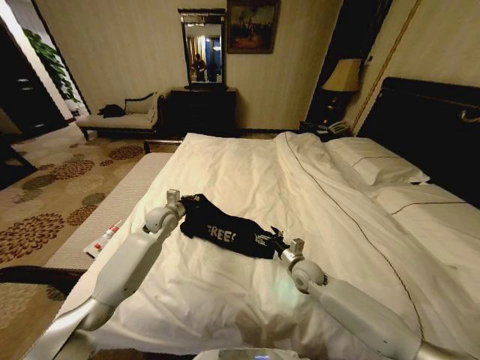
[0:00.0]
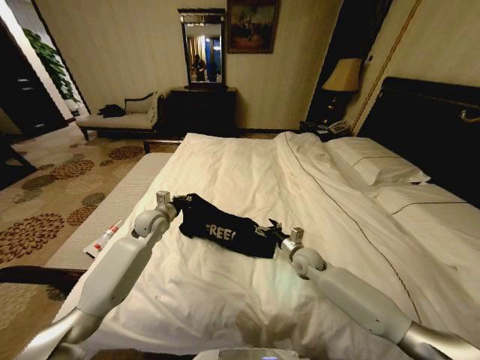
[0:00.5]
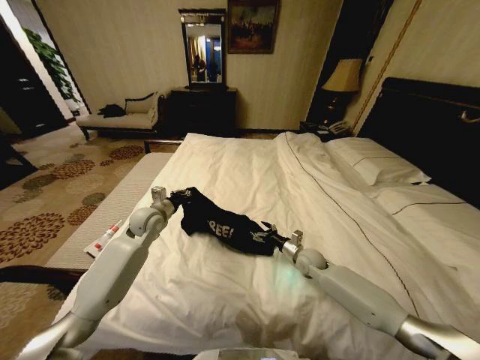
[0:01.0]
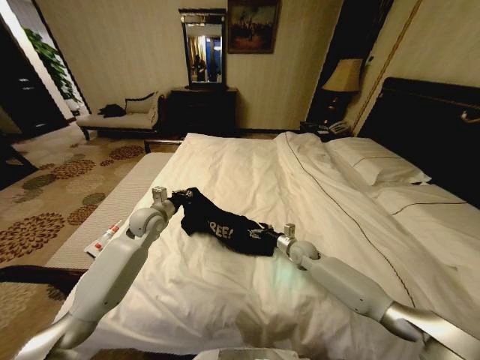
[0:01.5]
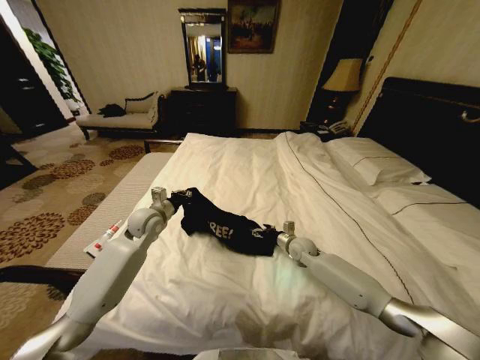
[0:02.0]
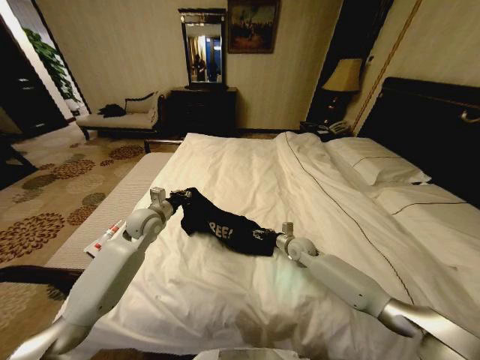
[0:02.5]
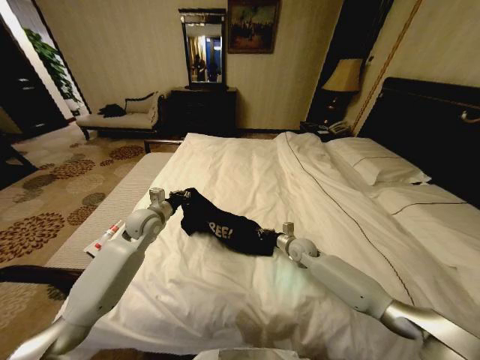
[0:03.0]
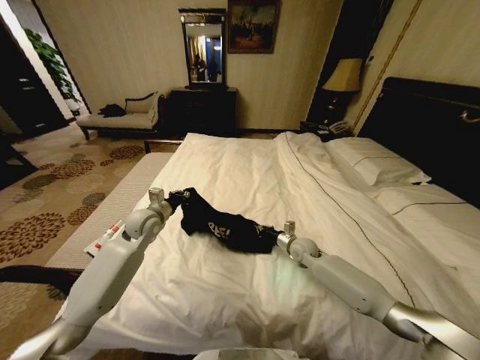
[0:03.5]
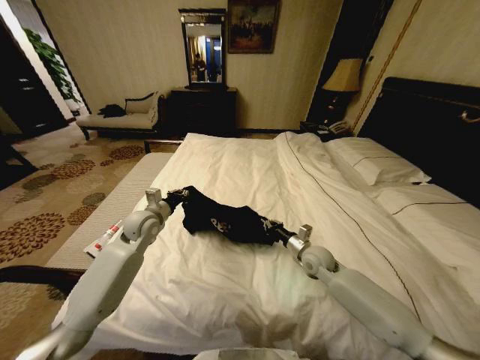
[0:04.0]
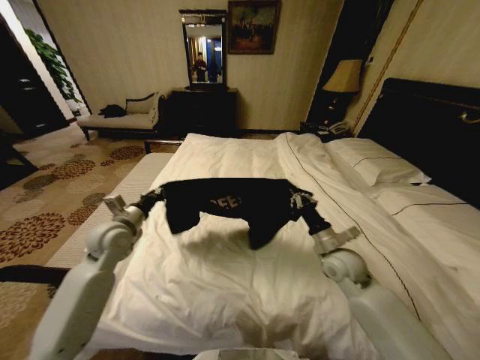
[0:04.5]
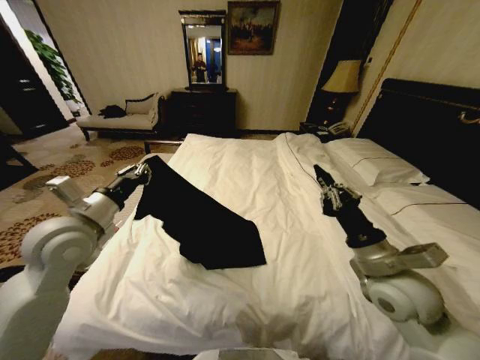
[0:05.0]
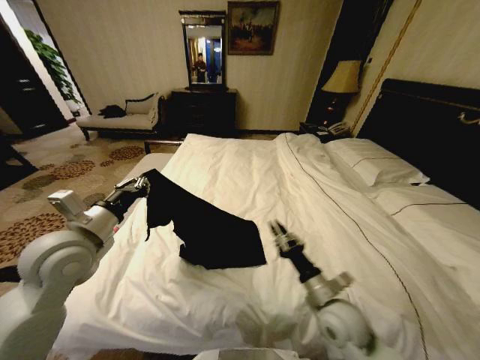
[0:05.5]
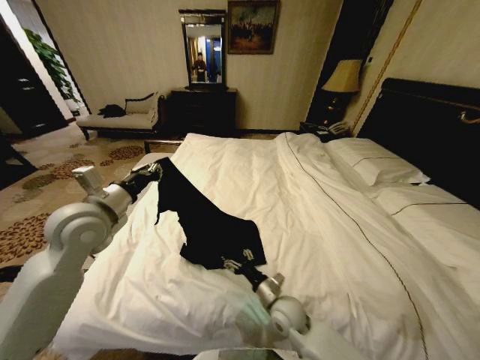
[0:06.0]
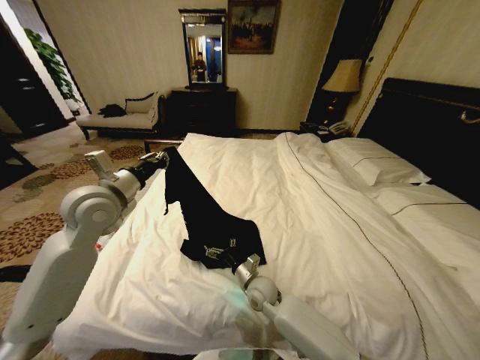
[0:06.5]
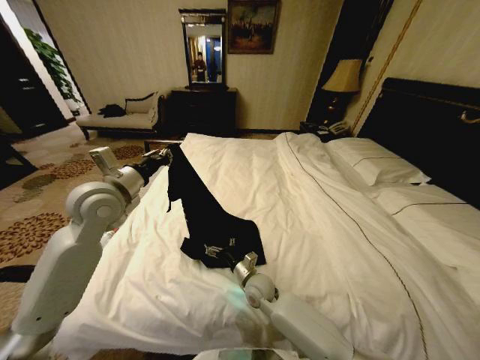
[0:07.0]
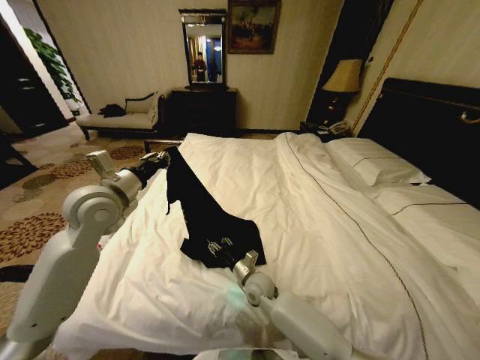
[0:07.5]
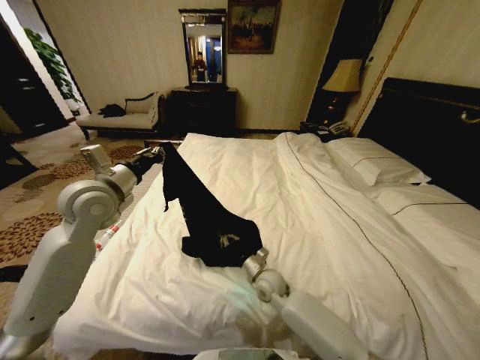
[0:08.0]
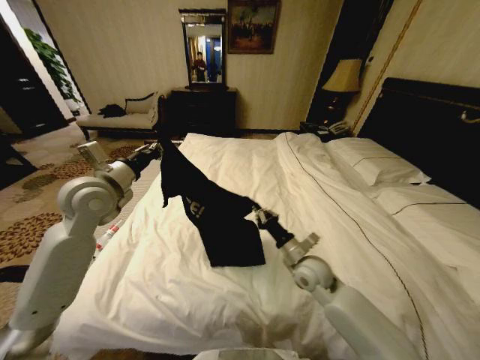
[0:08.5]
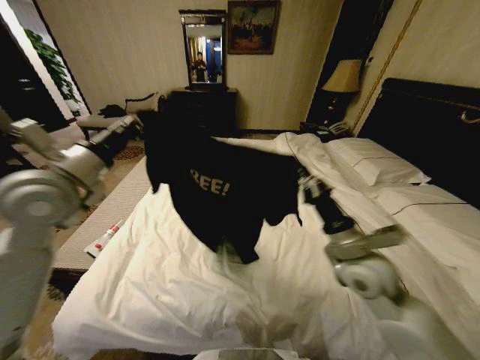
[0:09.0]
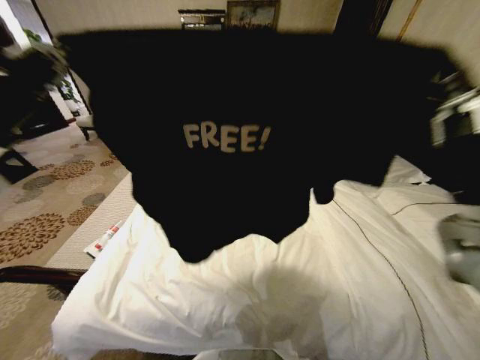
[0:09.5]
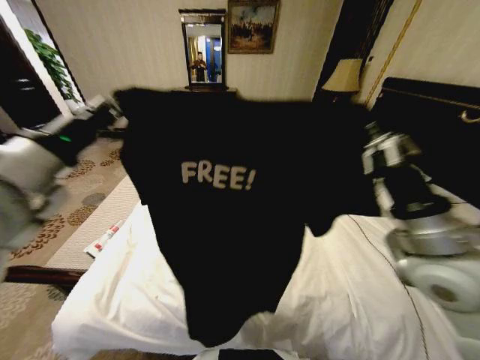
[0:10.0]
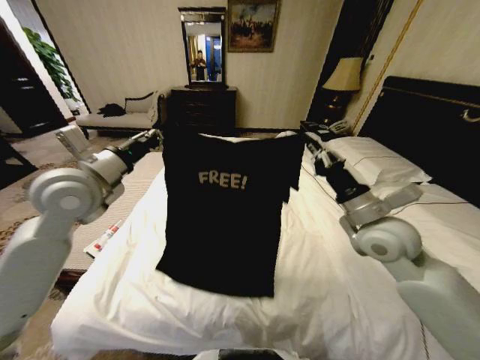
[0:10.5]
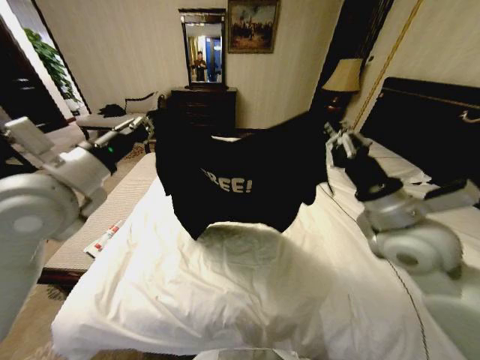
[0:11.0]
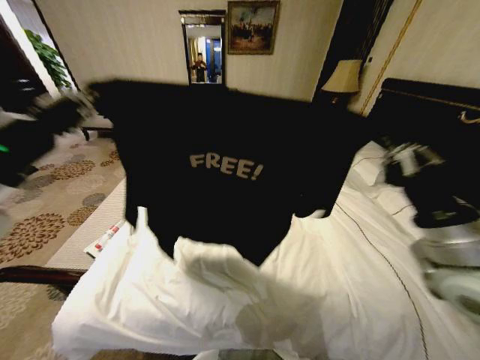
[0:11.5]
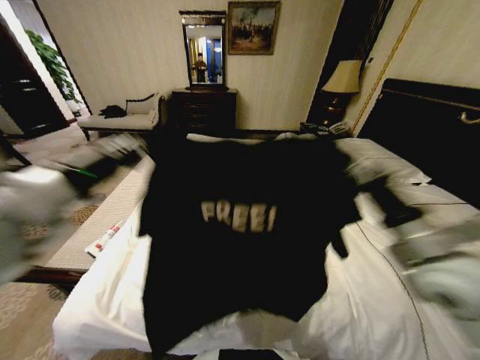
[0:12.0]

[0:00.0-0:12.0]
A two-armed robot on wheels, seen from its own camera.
Task of the whole recording: Fold the clothes on the bed.
0:00.0 to 0:02.0: The left gripper changes place by about 5 cm; the right gripper moves forward, about 10 cm.
0:02.0 to 0:04.0: The right gripper moves backward, some 5 cm, and closes.
0:04.0 to 0:06.0: The left gripper travels upward and backward by about 15 cm. Meanwhile the right gripper goes some 20 cm backward and to the left, moves about 15 cm upward and comes back, and opens.
0:06.0 to 0:08.0: The right gripper travels forward by about 10 cm, and closes. Meanwhile the left gripper moves roughly 5 cm.
0:08.0 to 0:10.0: The left gripper heads backward and upward, covering approximately 15 cm. Meanwhile the right gripper heads upward and to the right, covering approximately 35 cm.
0:10.0 to 0:12.0: The left gripper moves forward and backward over approximately 15 cm, changing direction 2 times. The right gripper moves approximately 10 cm forward and comes back.

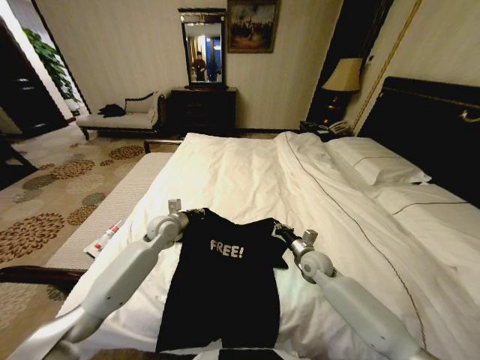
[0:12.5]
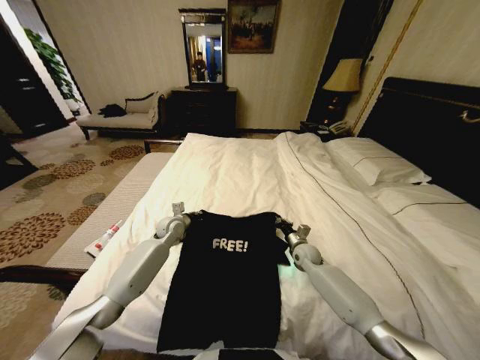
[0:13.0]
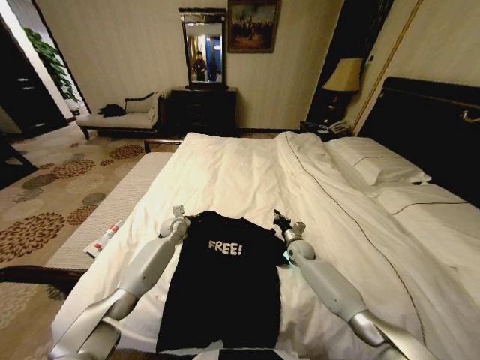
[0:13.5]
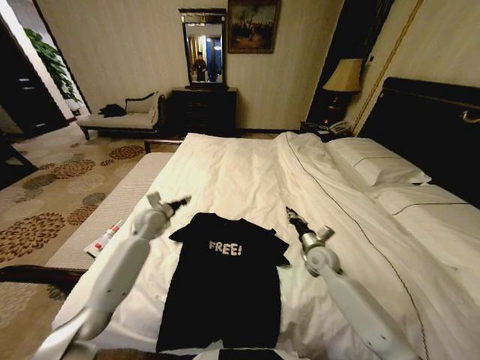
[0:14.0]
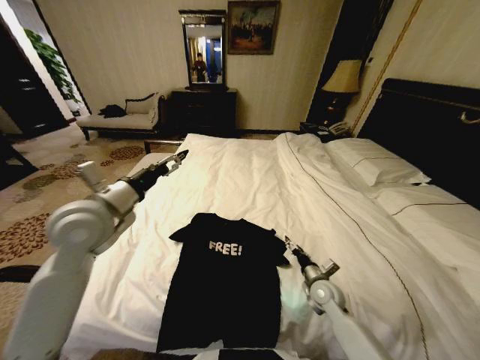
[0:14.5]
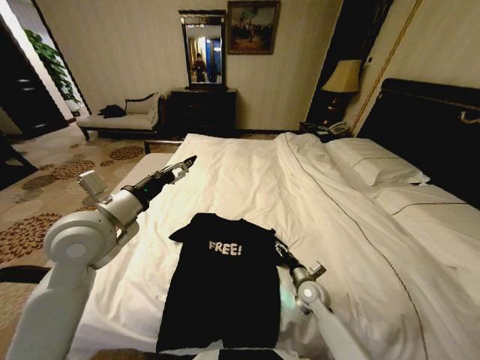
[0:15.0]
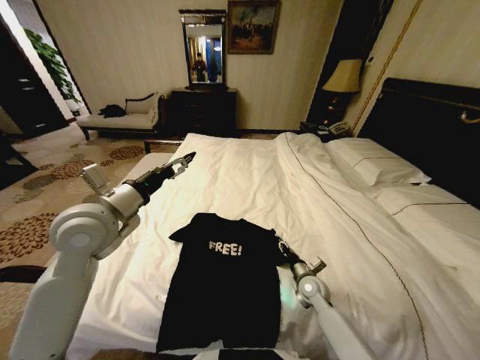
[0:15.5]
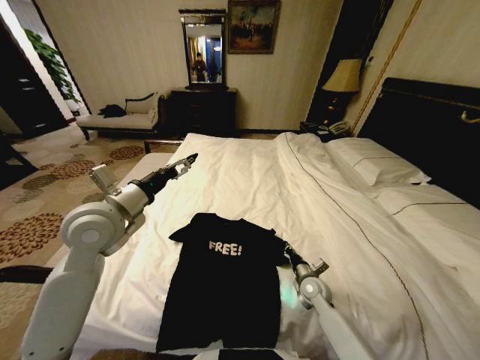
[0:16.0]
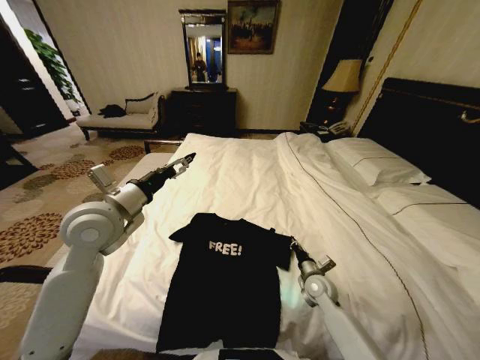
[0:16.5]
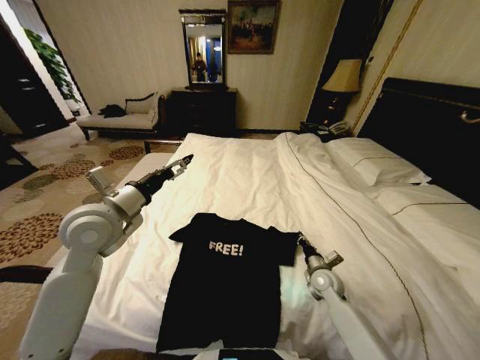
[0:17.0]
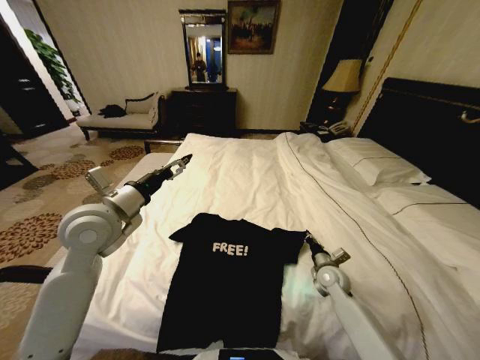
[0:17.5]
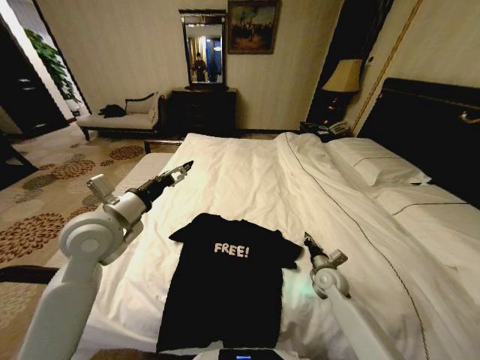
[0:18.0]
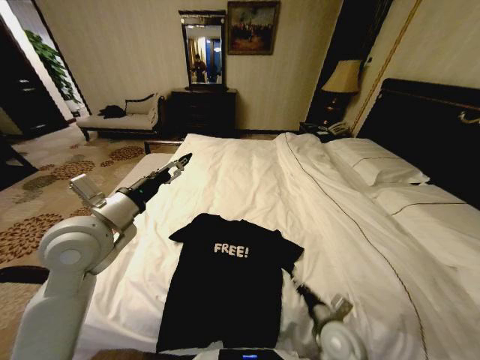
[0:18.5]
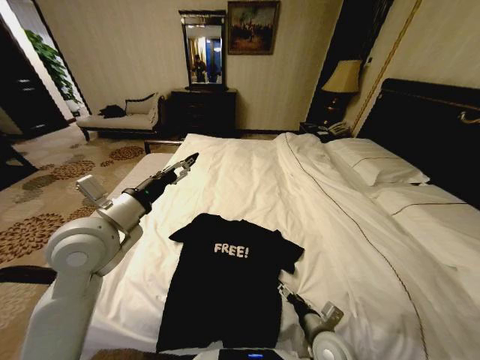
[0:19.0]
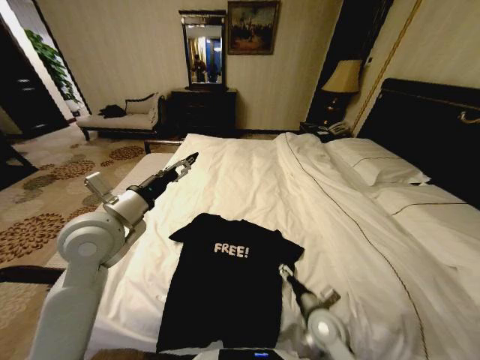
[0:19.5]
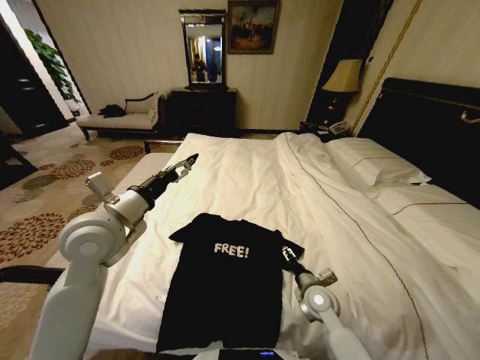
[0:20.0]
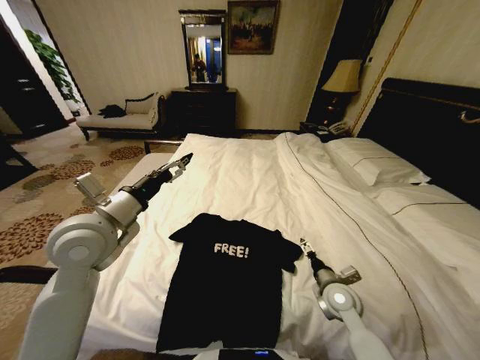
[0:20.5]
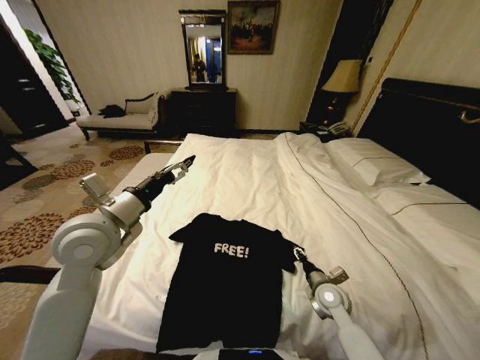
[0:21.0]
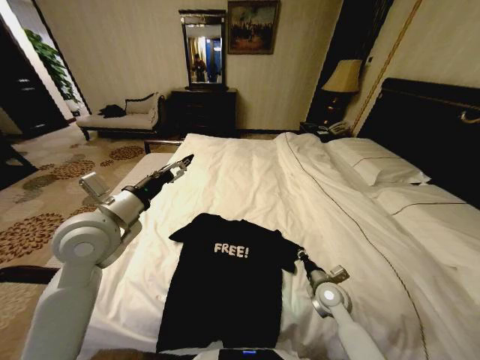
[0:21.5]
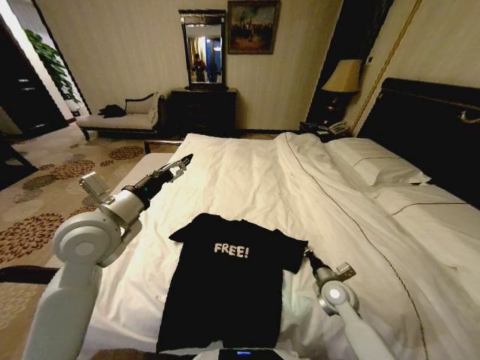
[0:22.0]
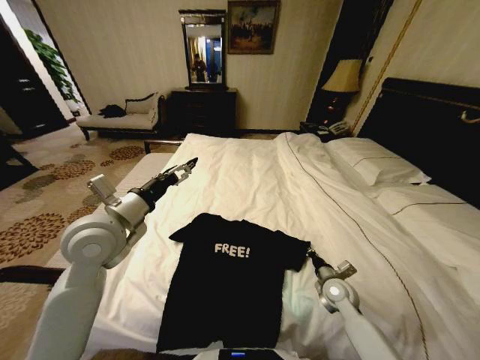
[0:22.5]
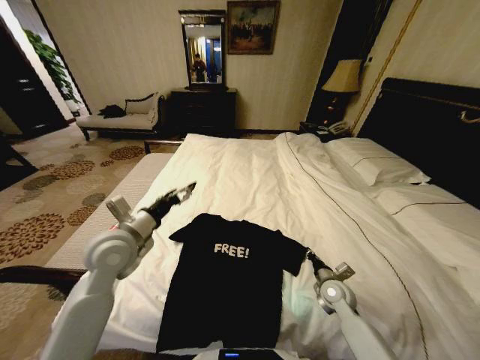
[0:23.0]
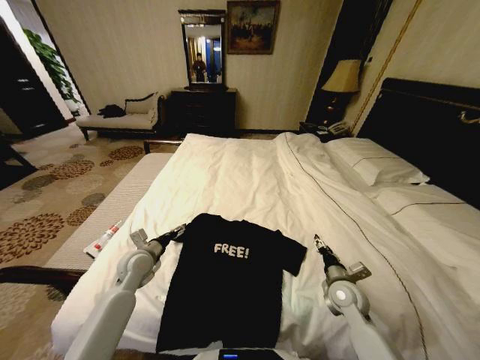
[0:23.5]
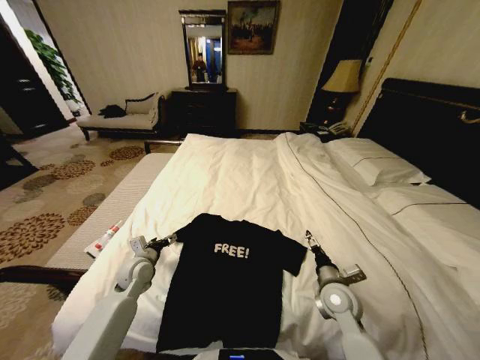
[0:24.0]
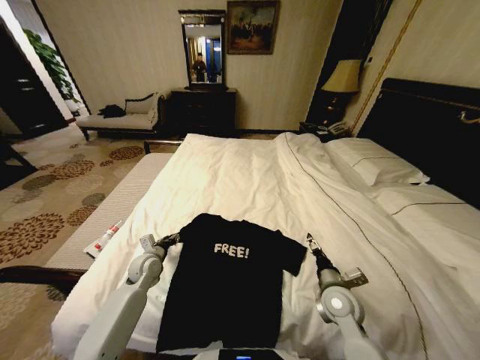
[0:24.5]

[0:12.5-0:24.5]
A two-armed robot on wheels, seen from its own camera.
Task of the whole recording: Fold the clothes on the bed.
0:12.5 to 0:14.5: The right gripper moves backward and downward, some 10 cm, and opens its fingers; the left gripper shifts about 25 cm upward and backward, and opens its fingers.
0:14.5 to 0:16.5: The right gripper closes.
0:16.5 to 0:18.5: The right gripper is displaced backward by some 15 cm, and opens.
0:18.5 to 0:20.5: The right gripper heads forward, covering some 10 cm.
0:20.5 to 0:22.5: The right gripper changes place by some 5 cm, and closes up.
0:22.5 to 0:24.5: The left gripper travels downward by about 25 cm, and closes; the right gripper is displaced upward and to the left by about 10 cm, and opens up.

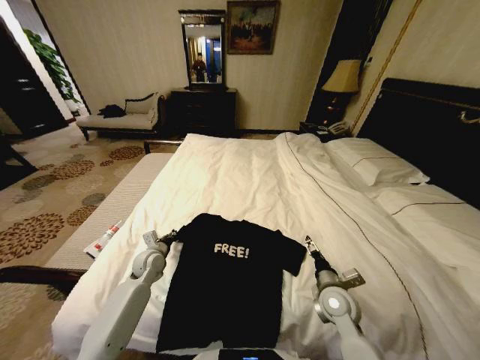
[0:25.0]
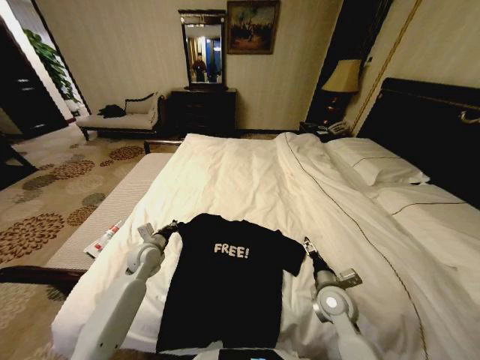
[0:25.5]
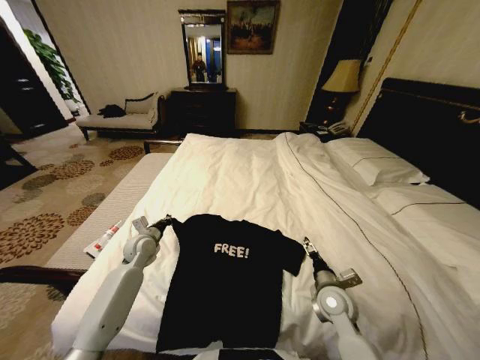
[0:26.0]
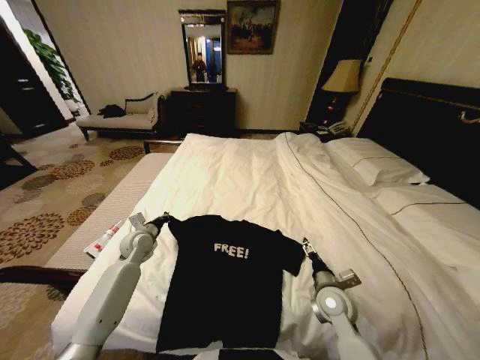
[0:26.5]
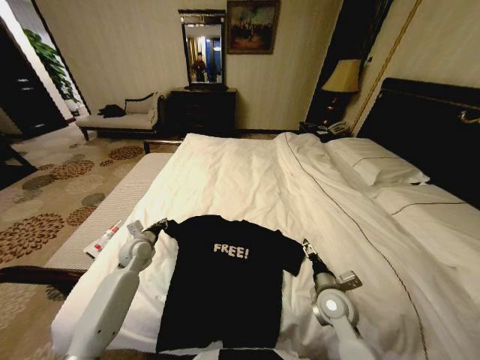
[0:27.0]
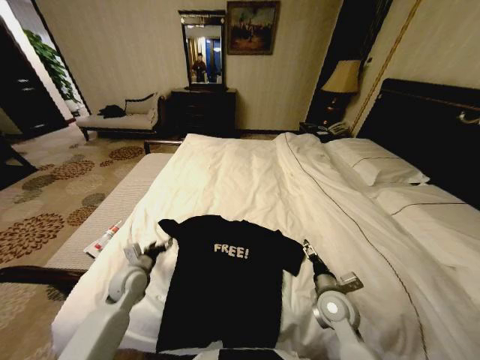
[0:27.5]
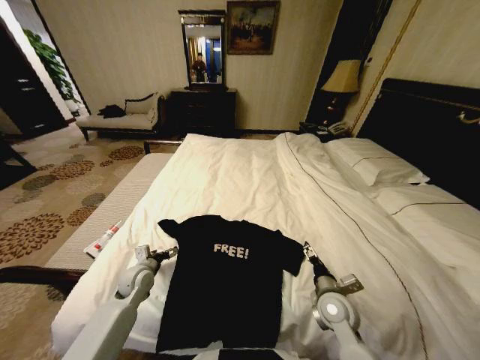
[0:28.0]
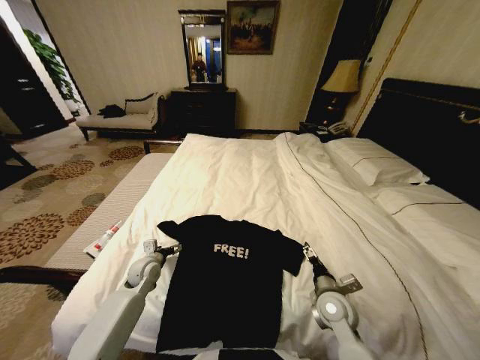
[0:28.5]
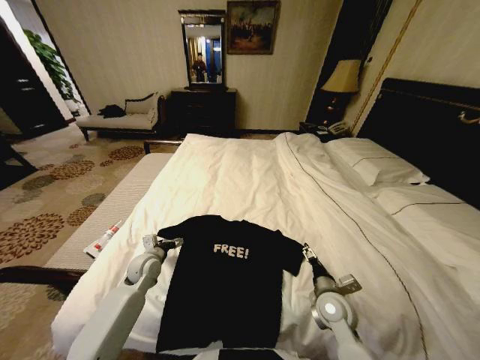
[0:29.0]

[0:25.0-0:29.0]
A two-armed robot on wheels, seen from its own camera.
Task of the whole recording: Fold the clothes on the bed.
0:25.0 to 0:27.0: The left gripper ends up about 5 cm from where it was.
0:27.0 to 0:29.0: The left gripper ends up some 5 cm from where it was, and opens up.
